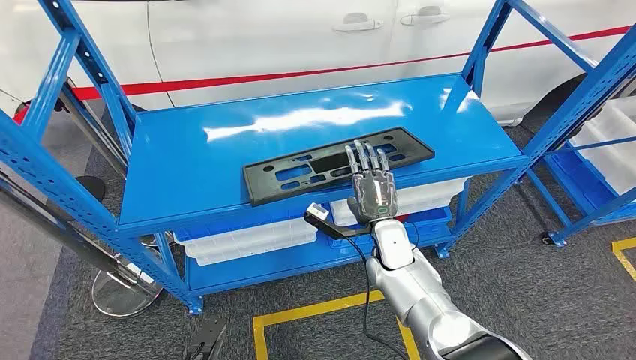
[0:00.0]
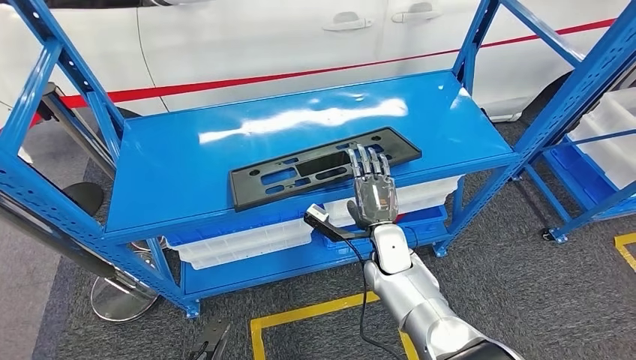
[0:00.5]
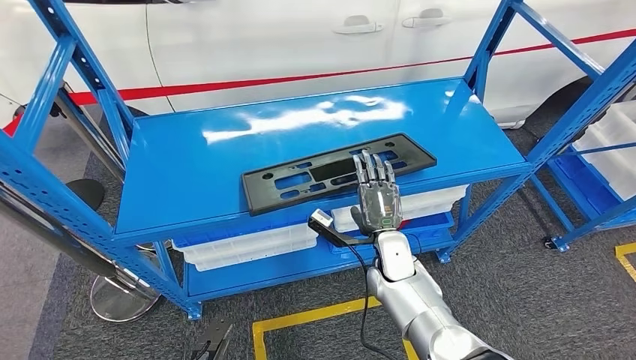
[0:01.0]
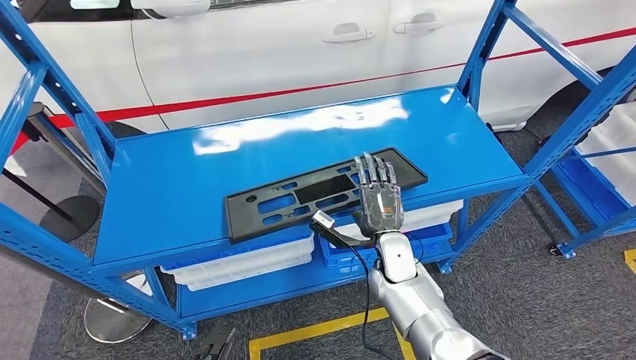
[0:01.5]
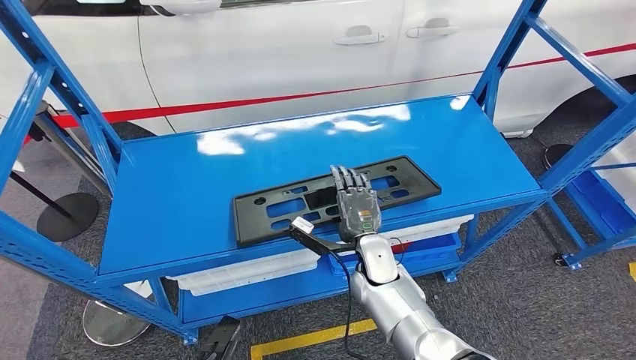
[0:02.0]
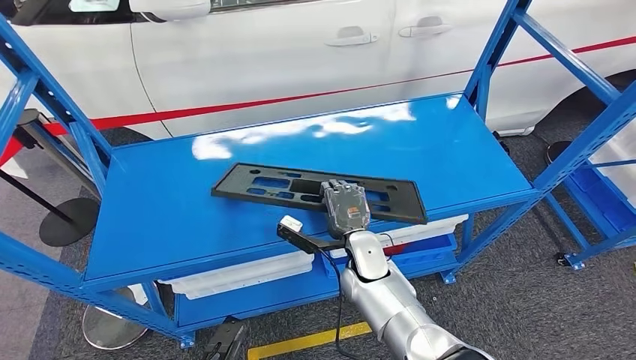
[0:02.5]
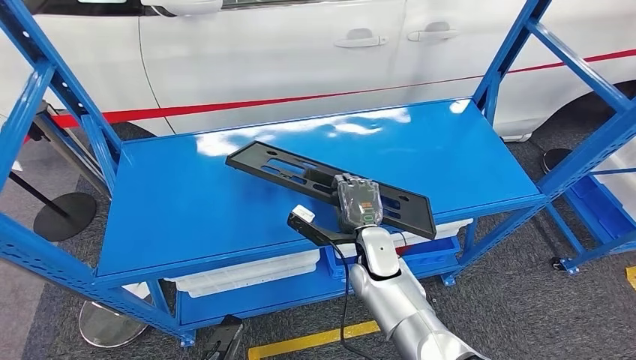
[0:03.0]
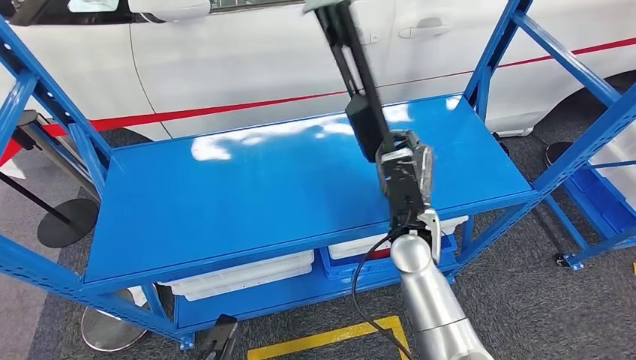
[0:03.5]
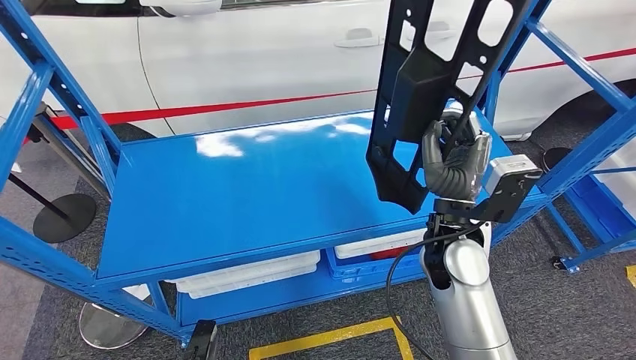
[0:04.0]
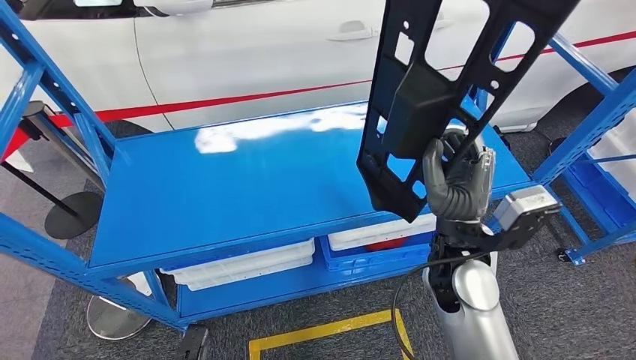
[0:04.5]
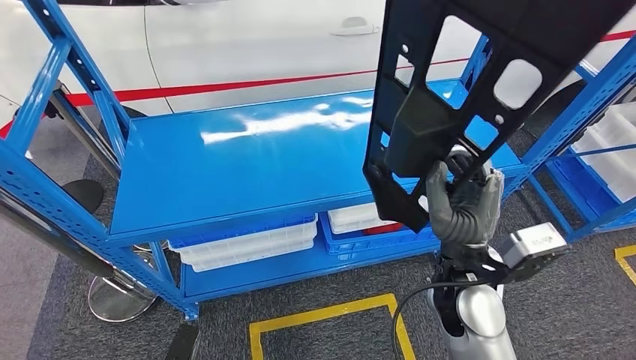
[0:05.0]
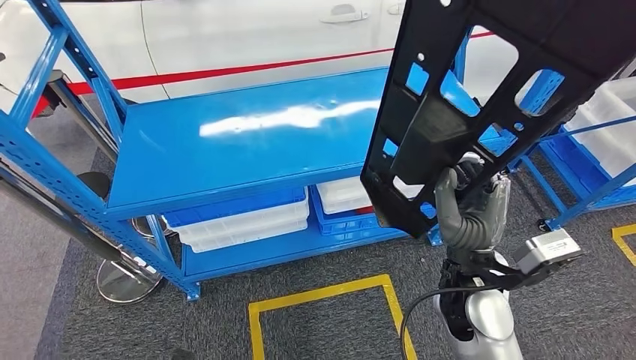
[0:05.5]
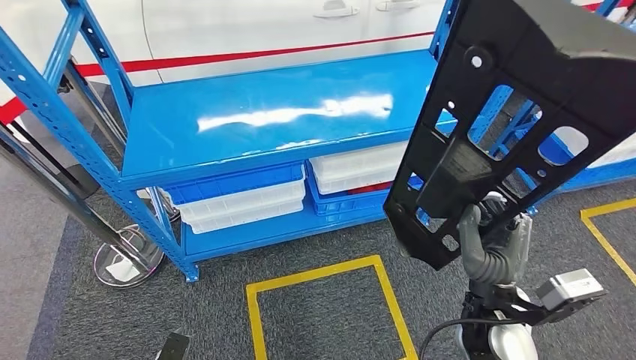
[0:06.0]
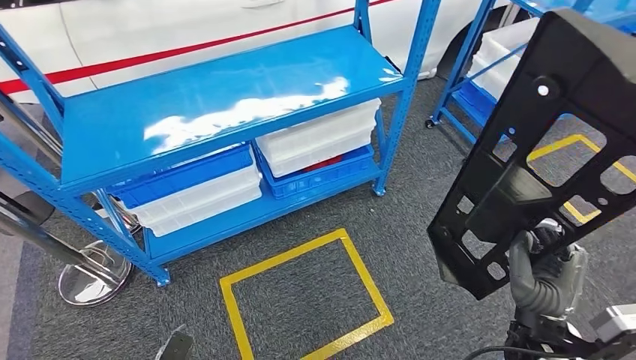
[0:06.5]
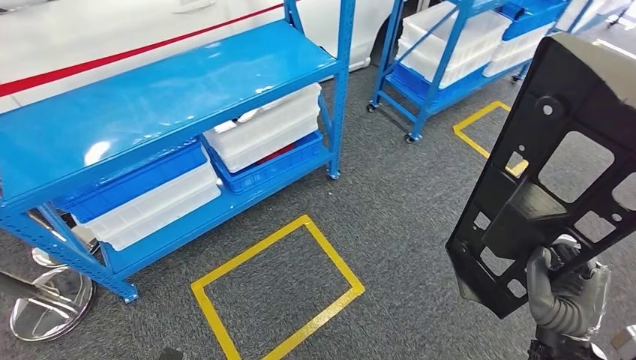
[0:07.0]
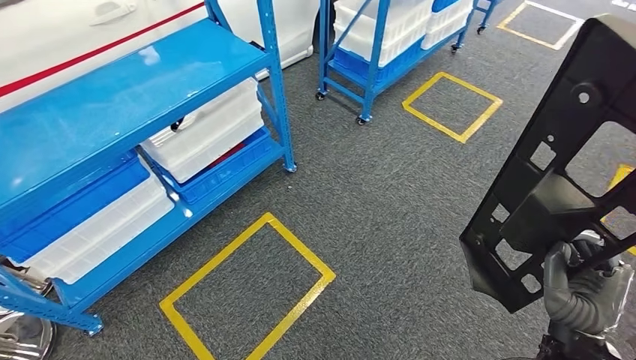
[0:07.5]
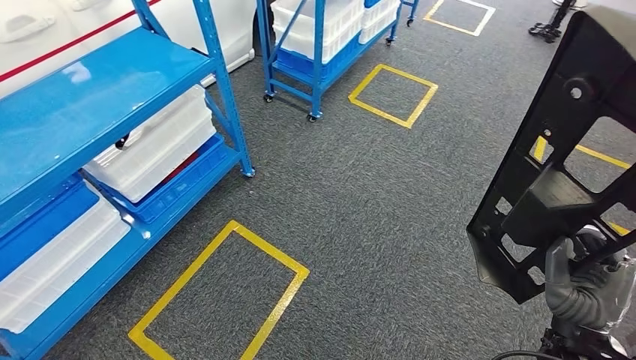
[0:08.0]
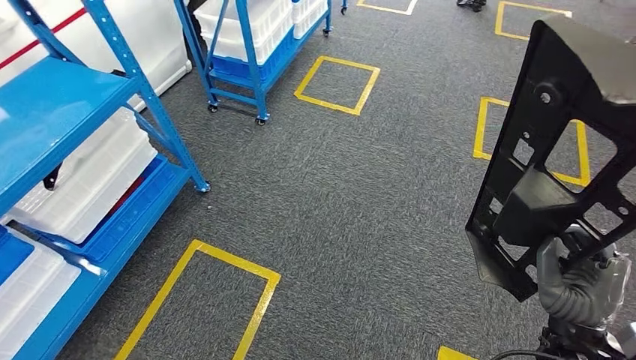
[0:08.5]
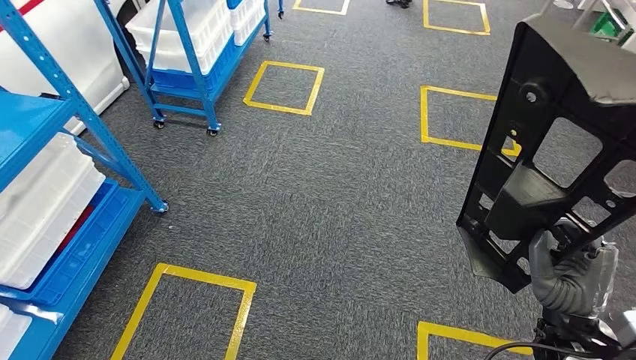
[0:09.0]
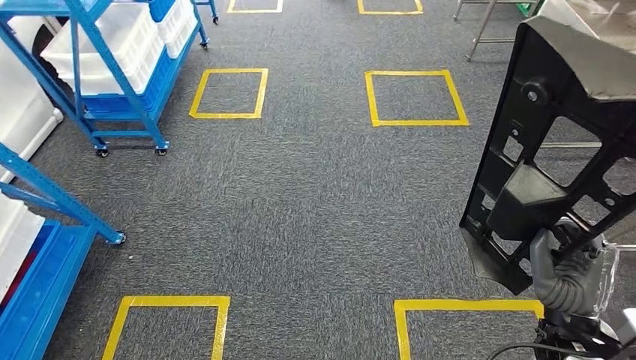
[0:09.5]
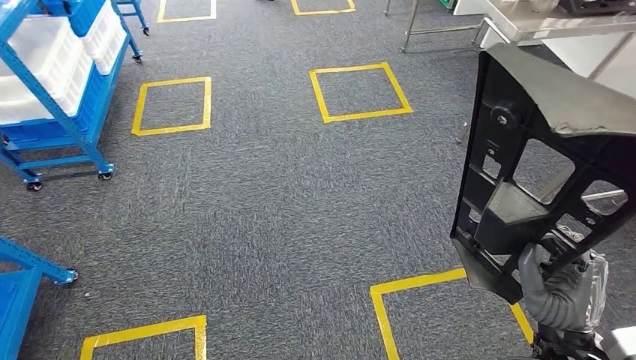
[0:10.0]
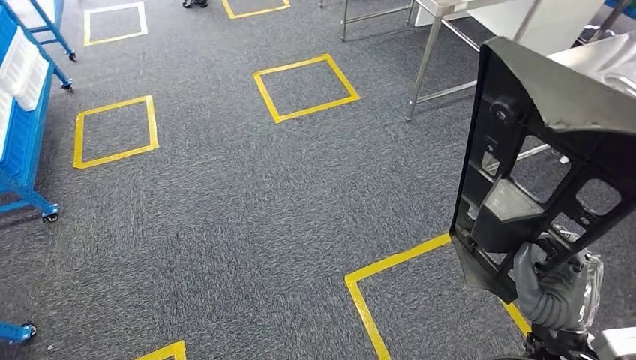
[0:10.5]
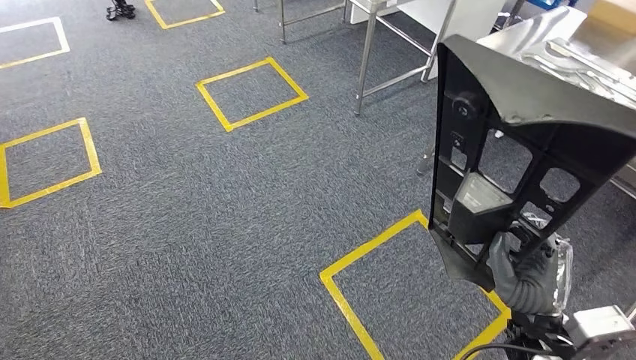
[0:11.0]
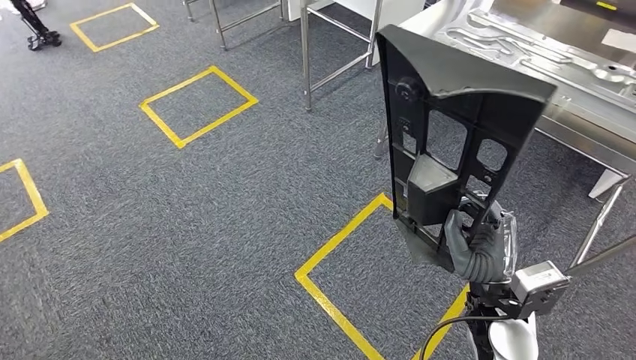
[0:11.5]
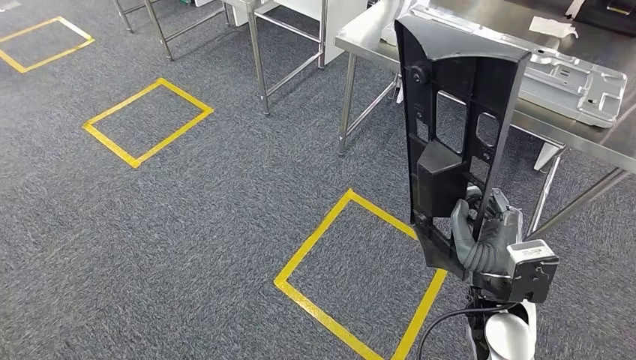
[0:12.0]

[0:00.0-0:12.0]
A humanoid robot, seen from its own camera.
Step, 0:00.0 to 0:04.5: Pick up the large material from the shelf.

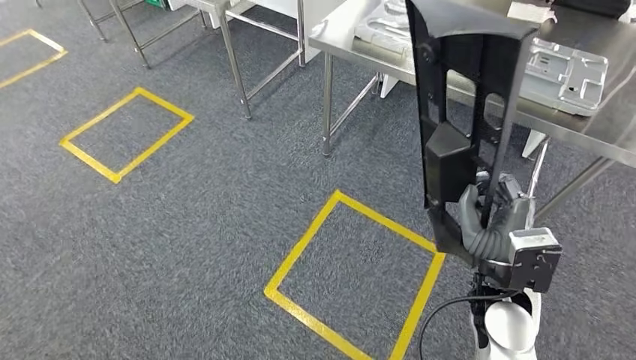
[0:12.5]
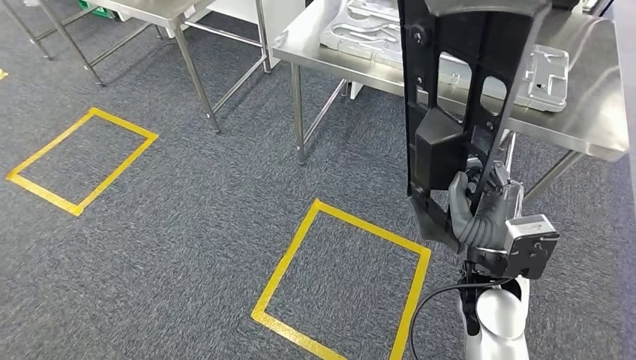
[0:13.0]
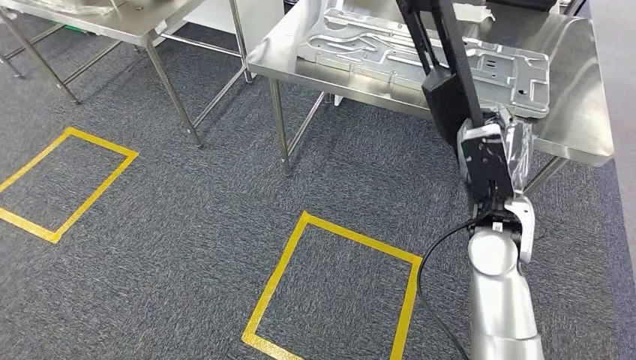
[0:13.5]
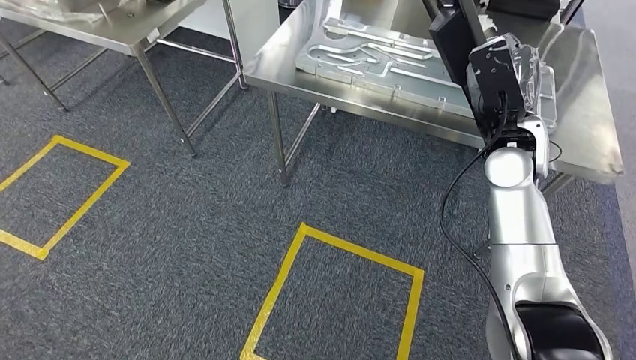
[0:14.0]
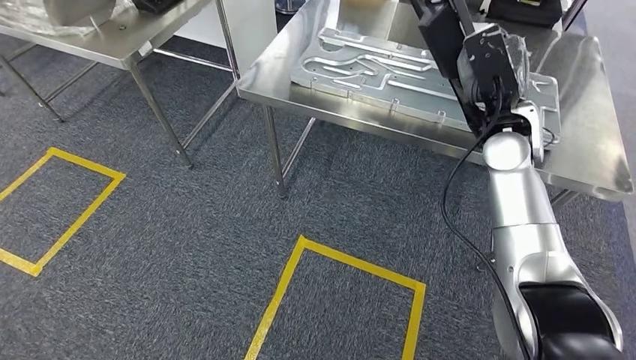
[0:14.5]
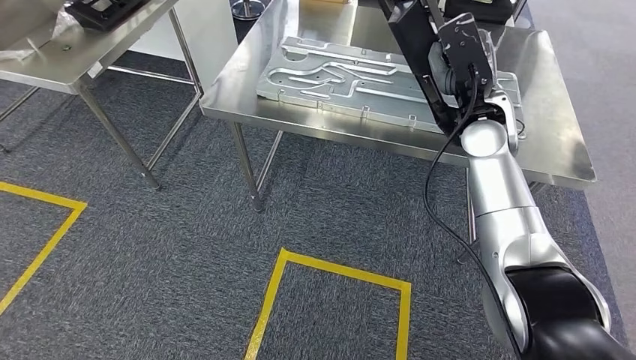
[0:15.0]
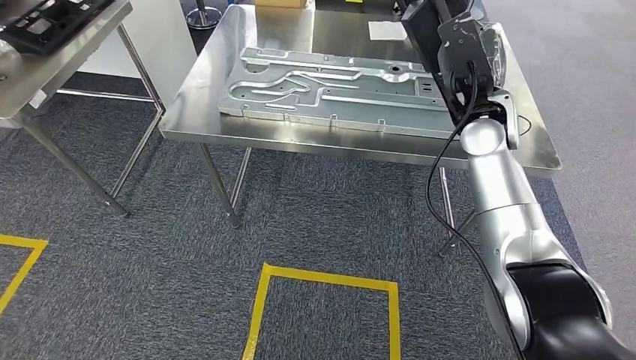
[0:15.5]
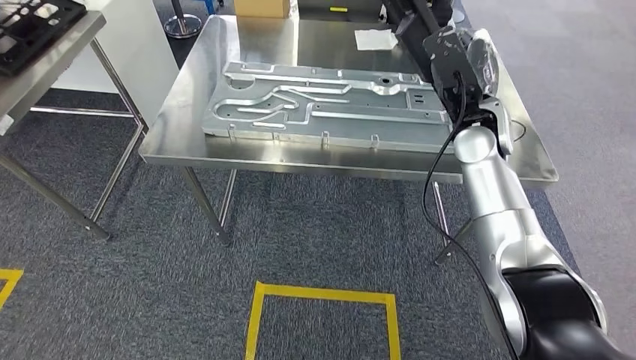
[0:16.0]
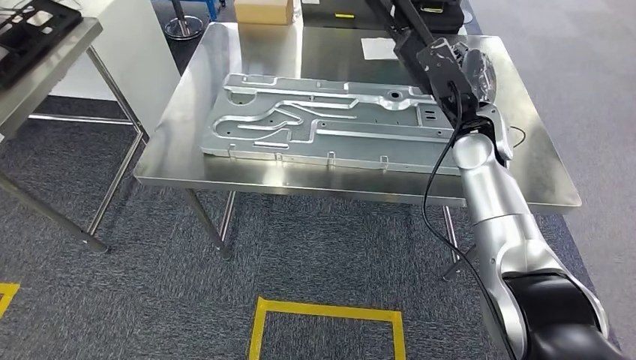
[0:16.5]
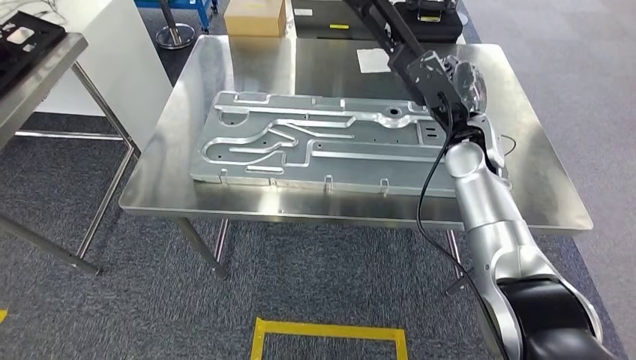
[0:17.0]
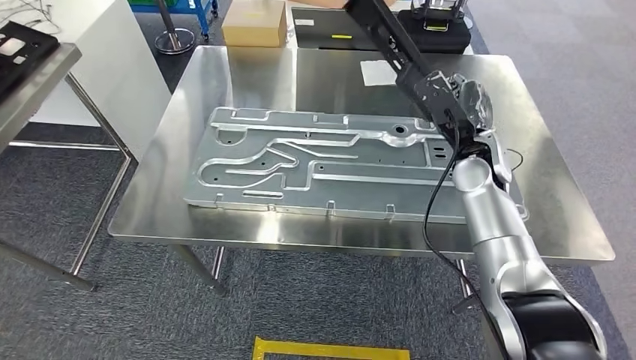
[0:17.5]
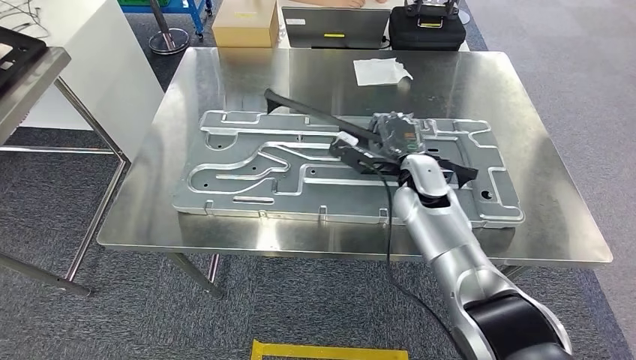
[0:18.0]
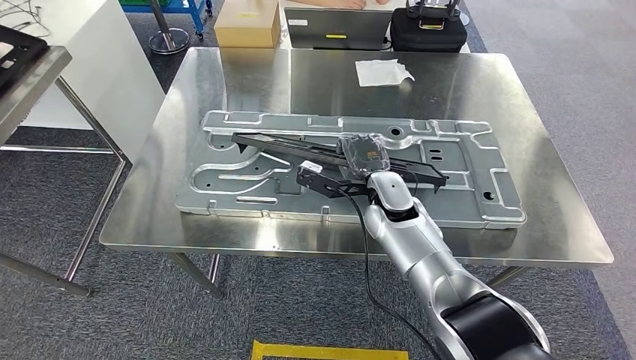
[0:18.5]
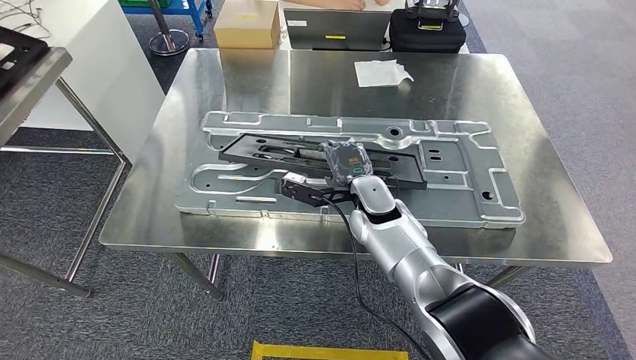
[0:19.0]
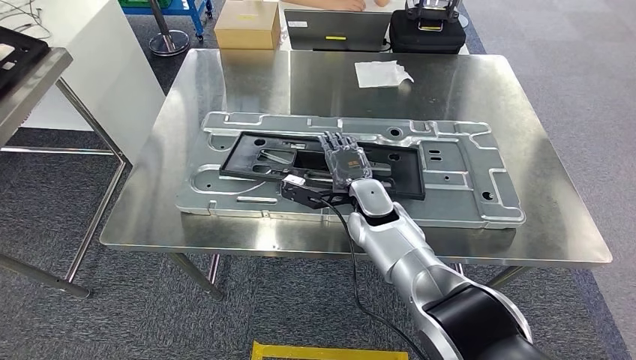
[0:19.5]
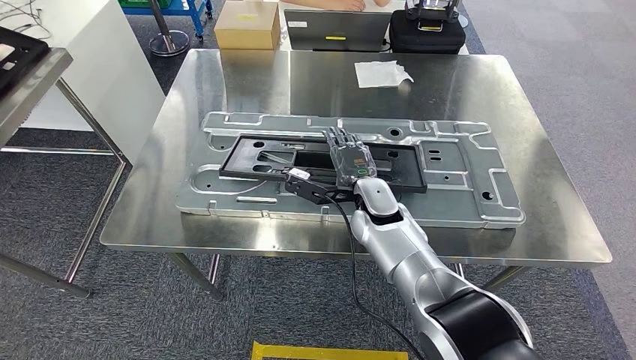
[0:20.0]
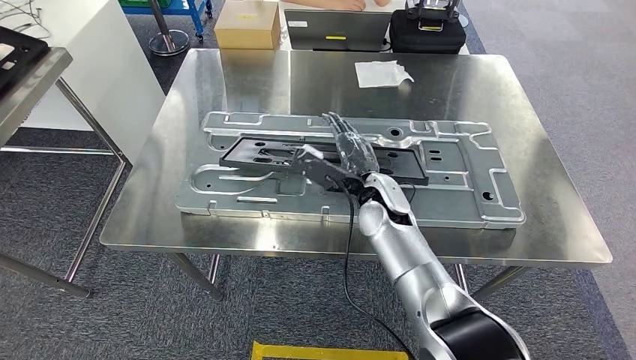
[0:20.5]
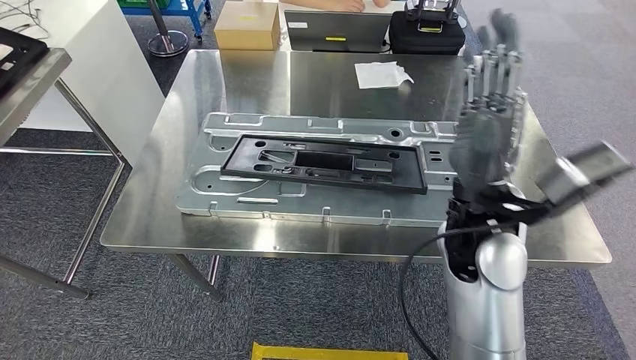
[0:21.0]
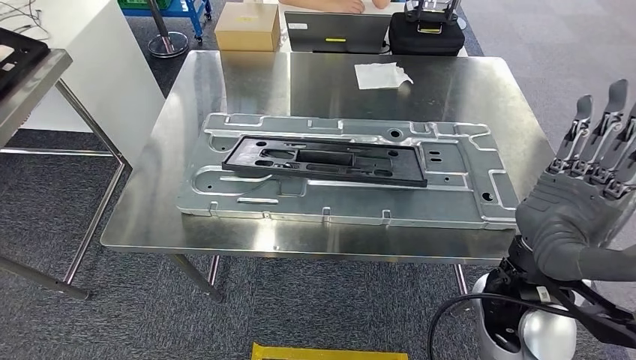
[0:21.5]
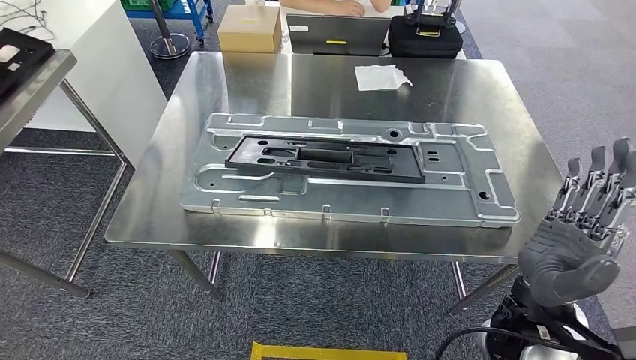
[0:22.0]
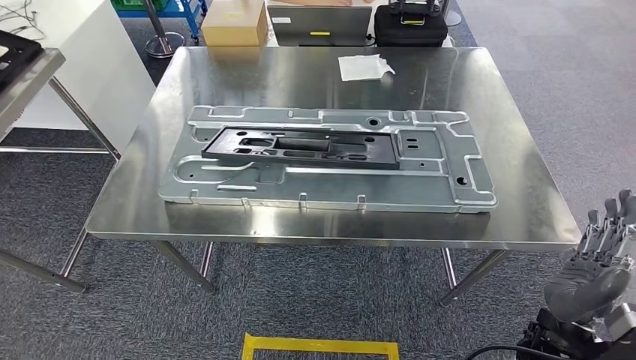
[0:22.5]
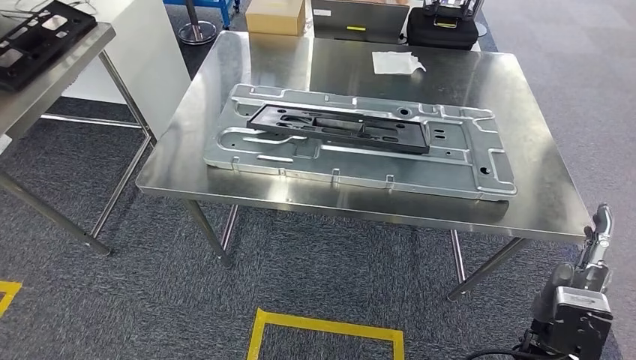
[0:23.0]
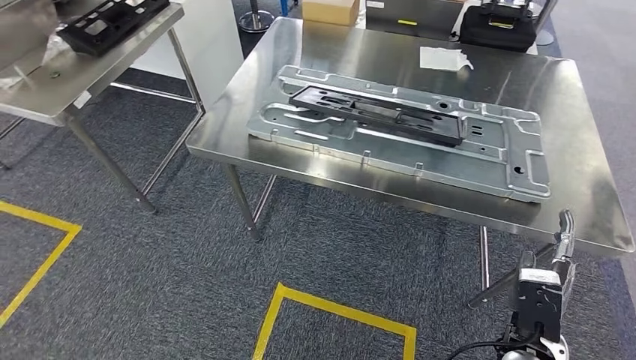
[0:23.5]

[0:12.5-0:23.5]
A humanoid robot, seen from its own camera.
Step, 0:12.5 to 0:15.0: Move the large material to the workbench.
Step, 0:16.5 to 0:22.0: Insert the large material into the corresponding slot on the workbench.
0:18.0 to 0:20.0: The right hand is displaced to the left by roughly 10 cm.
